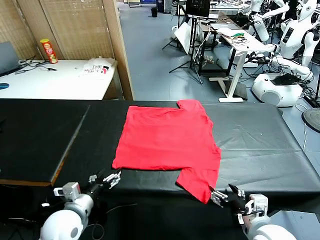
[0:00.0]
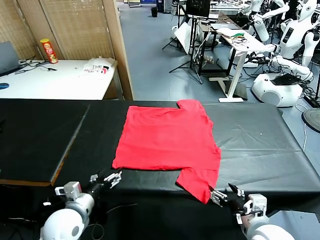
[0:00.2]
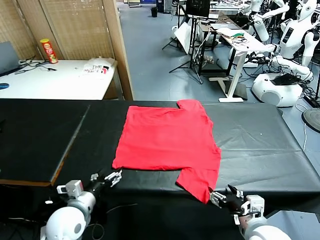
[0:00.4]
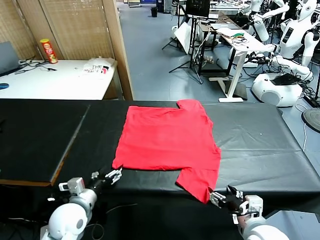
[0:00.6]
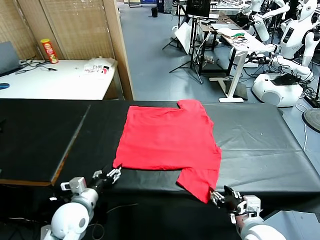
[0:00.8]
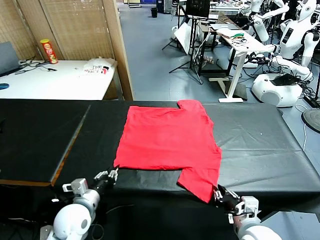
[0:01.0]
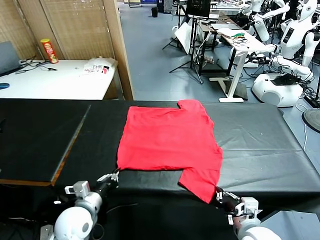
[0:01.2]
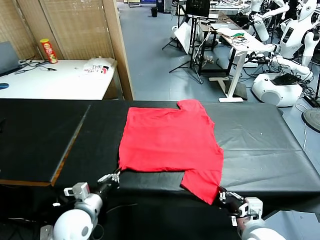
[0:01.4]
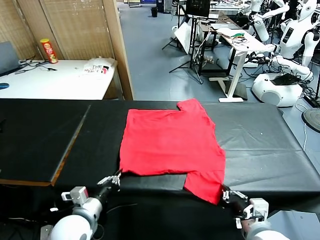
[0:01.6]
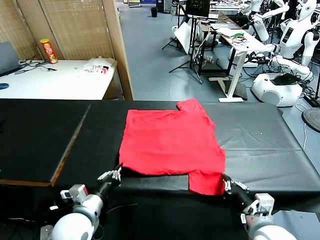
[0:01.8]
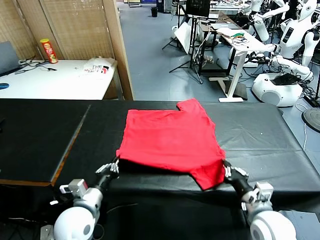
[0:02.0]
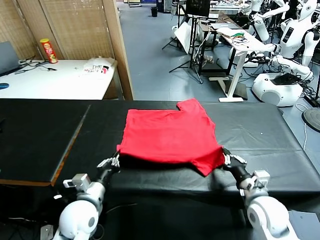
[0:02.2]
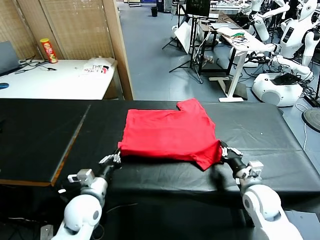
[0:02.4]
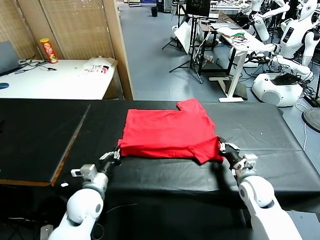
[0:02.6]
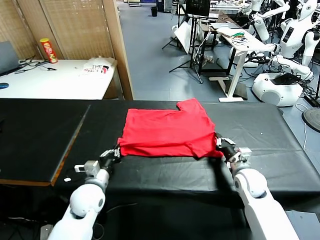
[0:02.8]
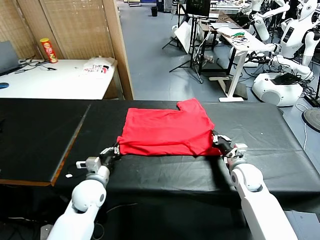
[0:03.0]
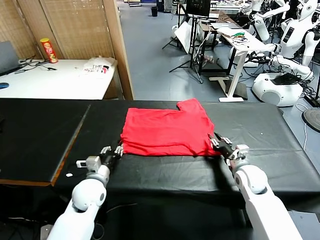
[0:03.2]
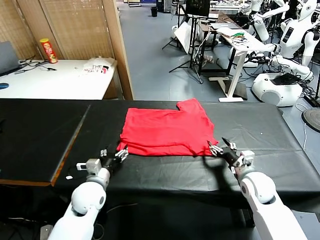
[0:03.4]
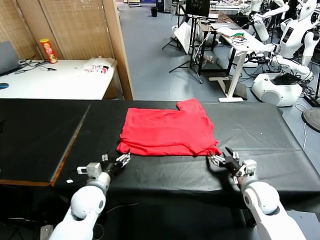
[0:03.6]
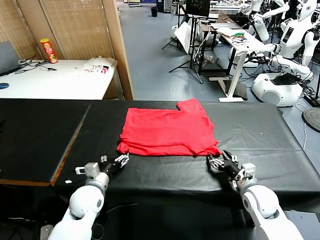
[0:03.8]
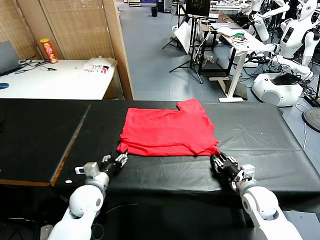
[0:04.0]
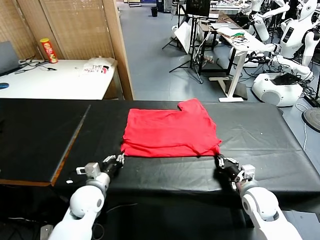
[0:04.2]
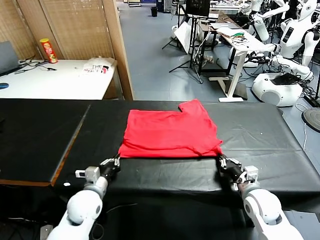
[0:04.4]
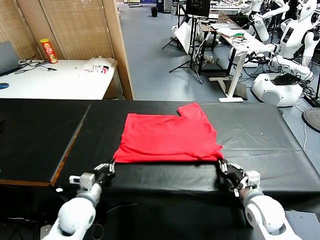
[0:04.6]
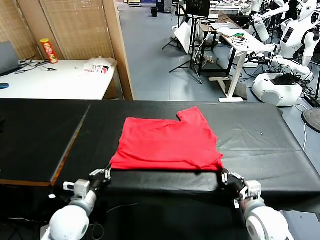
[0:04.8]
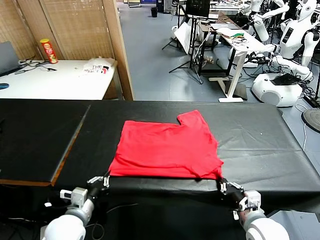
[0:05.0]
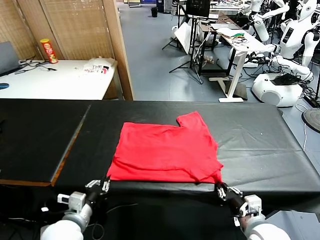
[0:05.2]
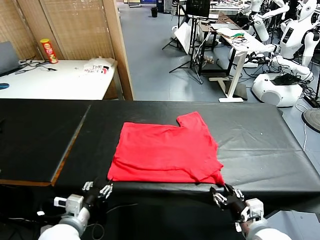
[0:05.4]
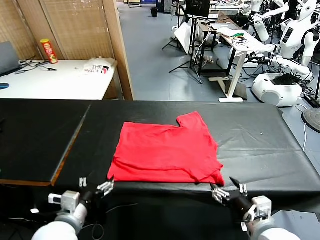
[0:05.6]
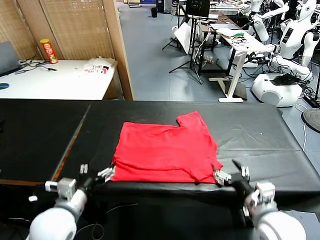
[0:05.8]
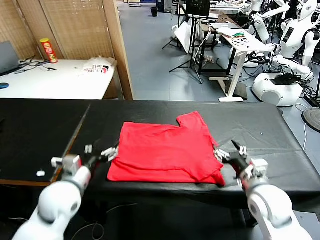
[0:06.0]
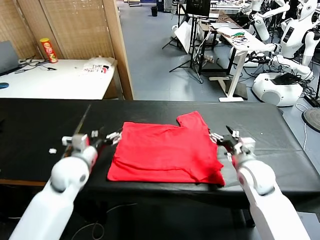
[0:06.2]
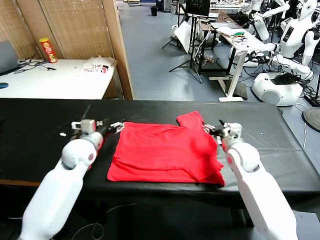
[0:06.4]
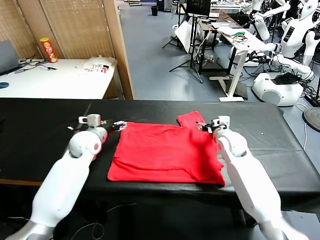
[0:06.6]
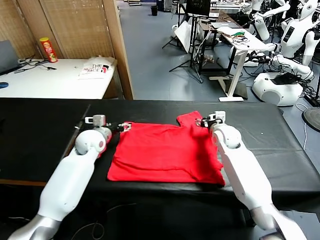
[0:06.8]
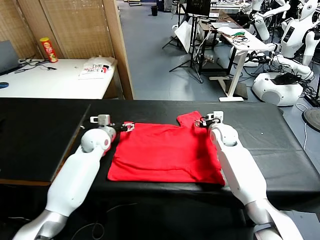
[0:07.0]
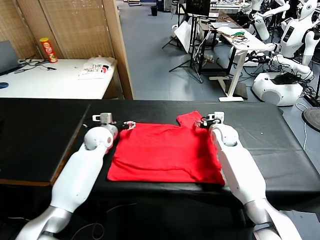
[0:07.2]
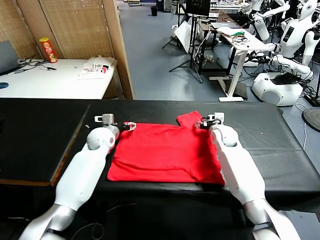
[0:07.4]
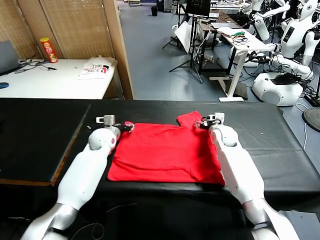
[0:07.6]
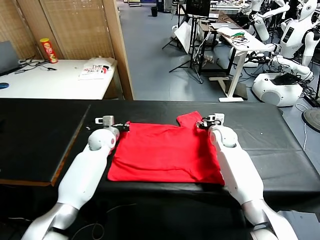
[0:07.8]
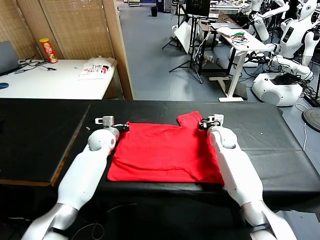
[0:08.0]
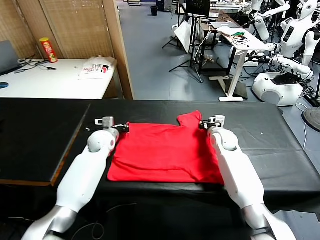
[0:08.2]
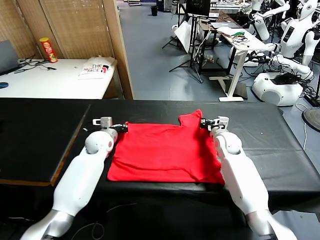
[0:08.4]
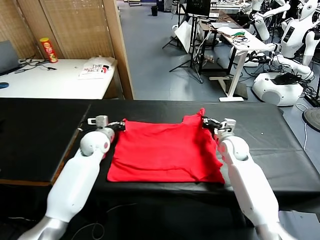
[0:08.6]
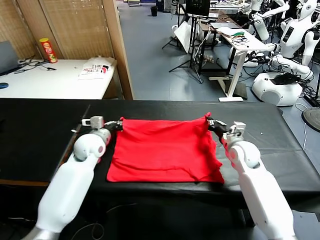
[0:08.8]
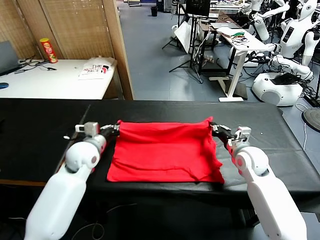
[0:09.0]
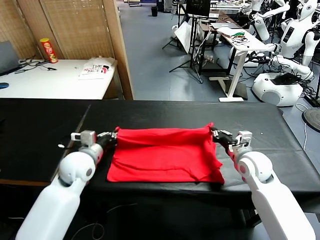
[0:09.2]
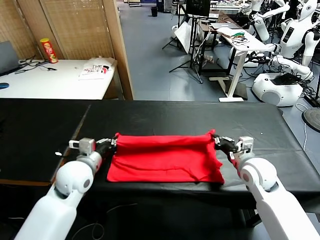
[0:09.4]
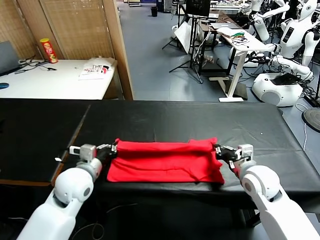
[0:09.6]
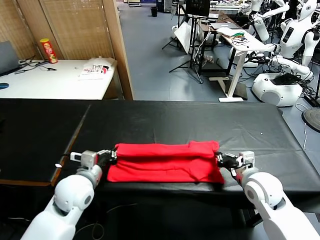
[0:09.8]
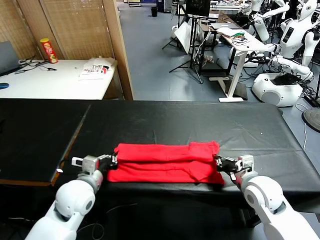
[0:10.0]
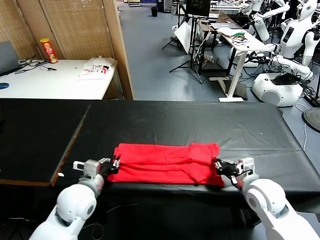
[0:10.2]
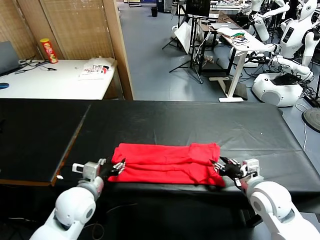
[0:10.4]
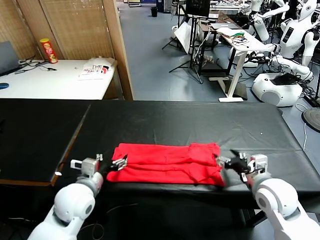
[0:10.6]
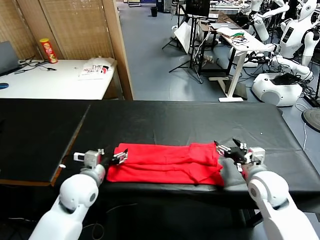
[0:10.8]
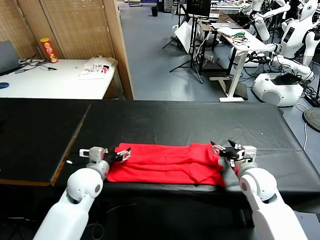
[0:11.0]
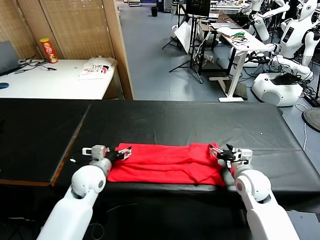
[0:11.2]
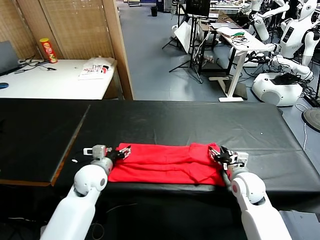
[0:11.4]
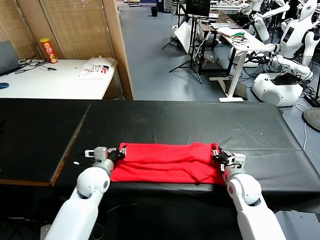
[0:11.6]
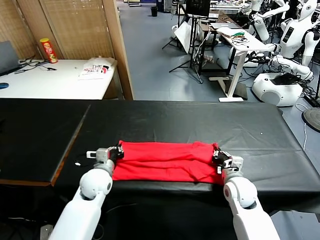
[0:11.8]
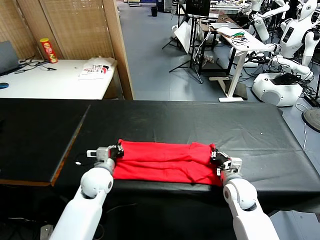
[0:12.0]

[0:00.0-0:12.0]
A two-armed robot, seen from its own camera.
Task of the whole recording: fold and organize the clothes.
Step, 0:00.0 to 0:01.2: use both grippers simultaneously to clamp the lower edge of the clothing fabric.
Step, 0:01.4 to 0:03.4: use both grippers to drag the lower edge of the fabric forward and fold it over the upper edge.
Step, 0:03.6 to 0:05.6: Drag the clothes downward with both gripper.
Step, 0:05.8 to 0:08.0: use both grippers simultaneously to clamp the upper edge of the clothing fabric.
Step, 0:08.2 to 0:10.4: use both grippers to drag the upper edge of the fabric backward and fold it over the lower edge.
0:01.6 to 0:03.0: The grippers both shift forward by some 15 cm. The left gripper opens. The right gripper opens.
0:03.0 to 0:04.4: The left gripper closes; the right gripper travels backward by roughly 10 cm, and closes up.
0:04.4 to 0:06.0: The right gripper travels forward and upward by roughly 15 cm, and opens its fingers, while the left gripper moves upward, about 10 cm, reaches some 10 cm backward, then returns, and opens up.
0:06.0 to 0:07.6: Both grippers move forward, approximately 20 cm. The left gripper closes up.
0:07.6 to 0:09.0: The left gripper shifts approximately 15 cm backward and upward, and closes, while the right gripper shifts approximately 15 cm backward, and closes its fingers.
0:09.0 to 0:10.4: The two grippers go about 10 cm backward. The right gripper opens up, while the left gripper opens.
0:10.4 to 0:12.0: The right gripper goes about 10 cm downward, and closes up; the left gripper shifts some 10 cm forward and downward, and closes up.

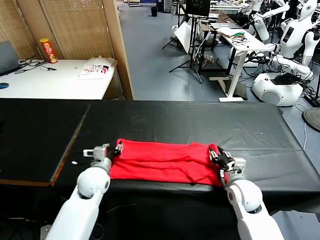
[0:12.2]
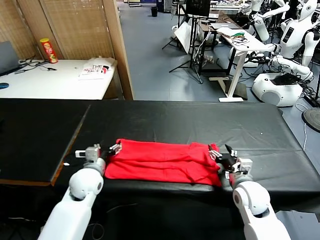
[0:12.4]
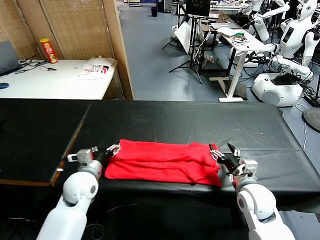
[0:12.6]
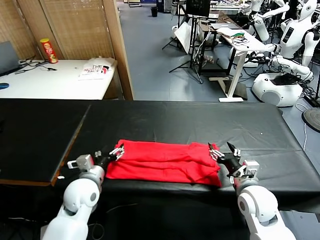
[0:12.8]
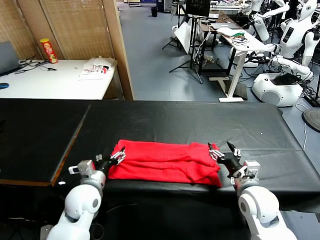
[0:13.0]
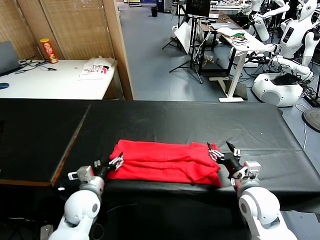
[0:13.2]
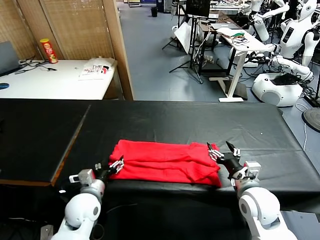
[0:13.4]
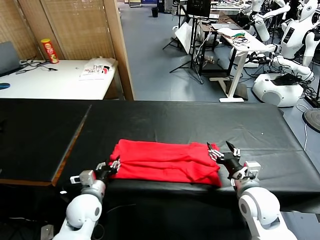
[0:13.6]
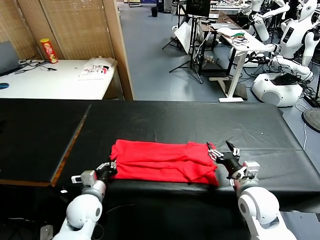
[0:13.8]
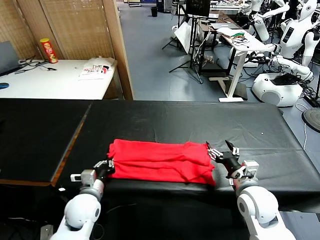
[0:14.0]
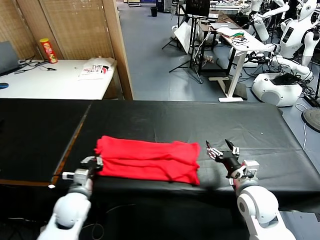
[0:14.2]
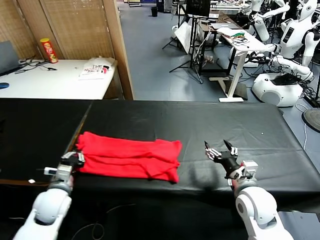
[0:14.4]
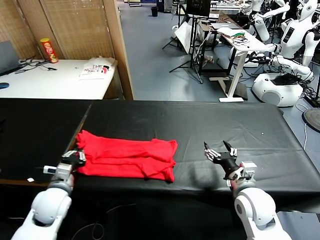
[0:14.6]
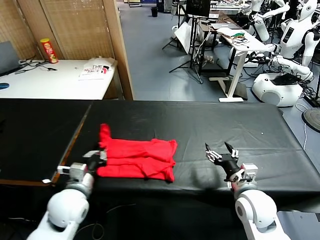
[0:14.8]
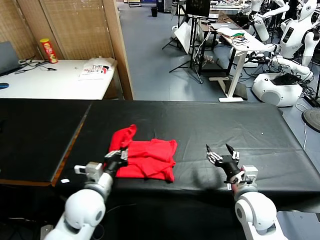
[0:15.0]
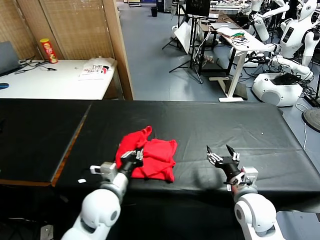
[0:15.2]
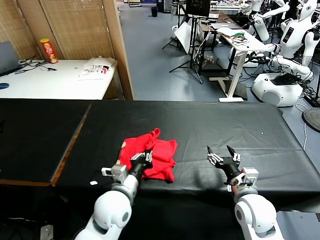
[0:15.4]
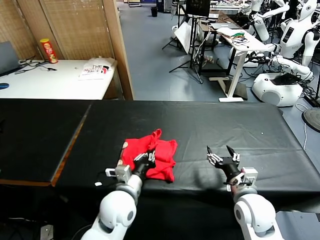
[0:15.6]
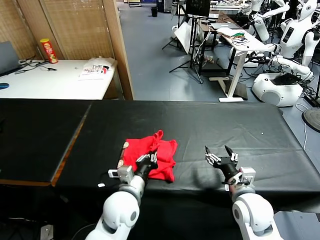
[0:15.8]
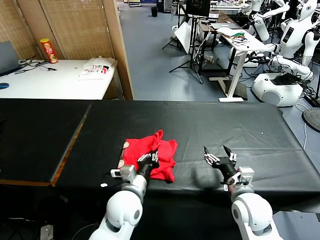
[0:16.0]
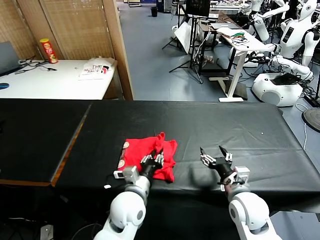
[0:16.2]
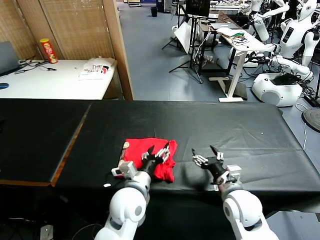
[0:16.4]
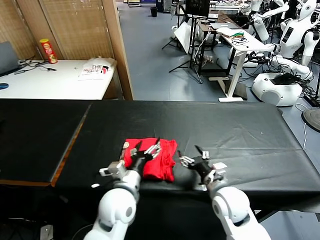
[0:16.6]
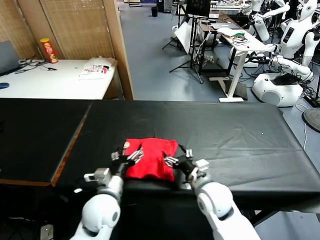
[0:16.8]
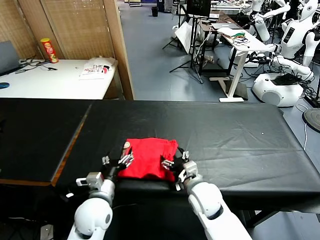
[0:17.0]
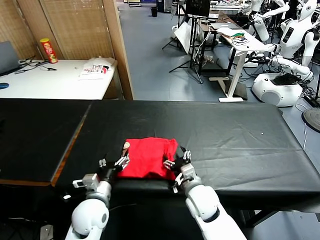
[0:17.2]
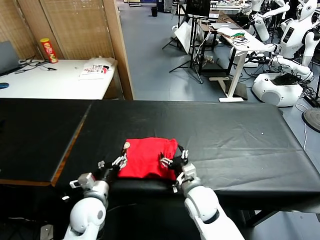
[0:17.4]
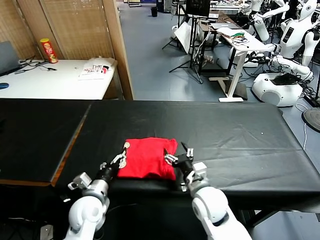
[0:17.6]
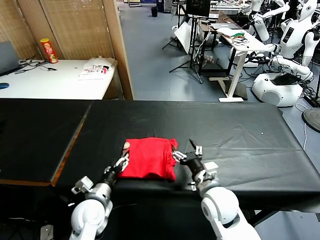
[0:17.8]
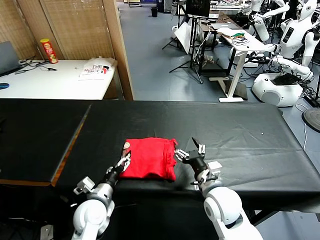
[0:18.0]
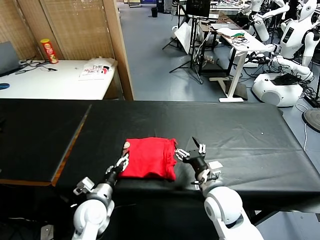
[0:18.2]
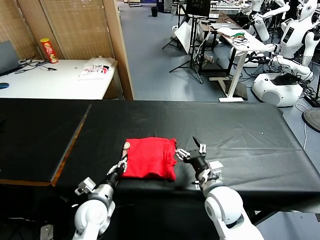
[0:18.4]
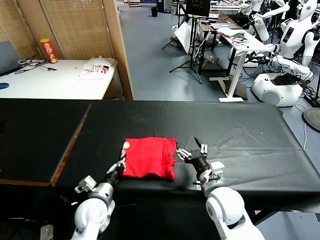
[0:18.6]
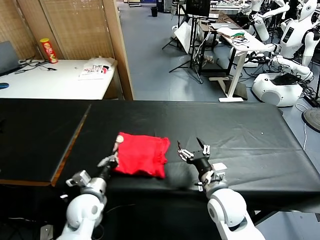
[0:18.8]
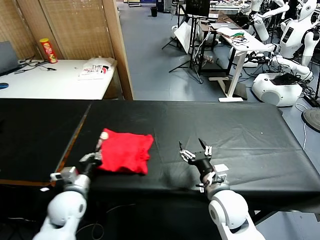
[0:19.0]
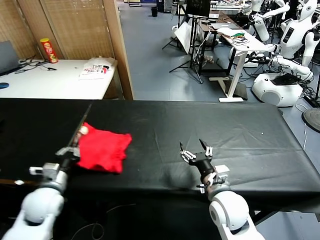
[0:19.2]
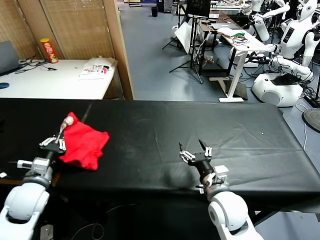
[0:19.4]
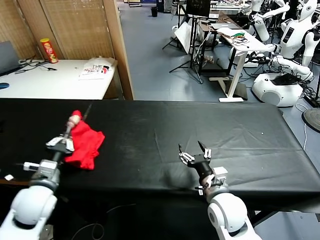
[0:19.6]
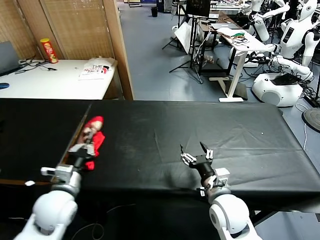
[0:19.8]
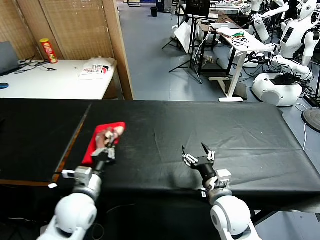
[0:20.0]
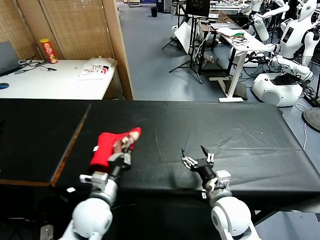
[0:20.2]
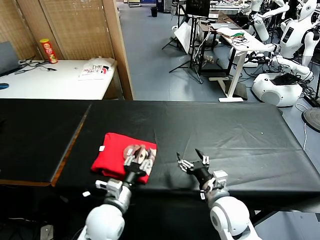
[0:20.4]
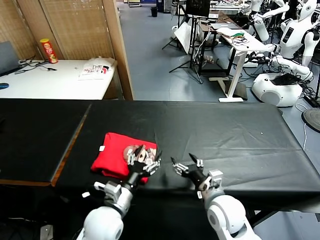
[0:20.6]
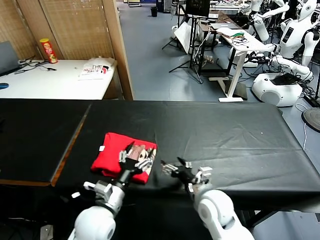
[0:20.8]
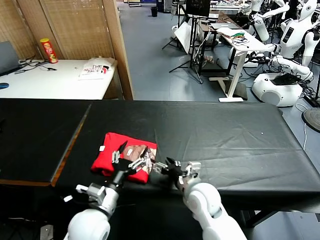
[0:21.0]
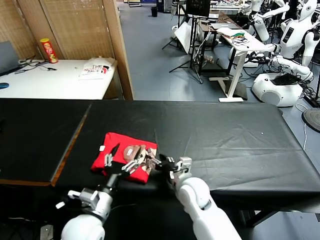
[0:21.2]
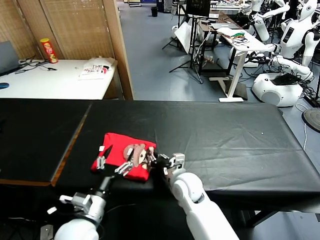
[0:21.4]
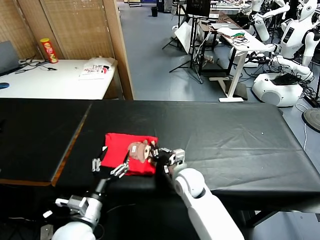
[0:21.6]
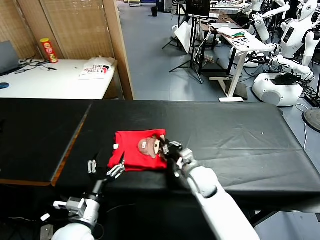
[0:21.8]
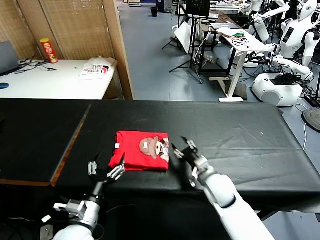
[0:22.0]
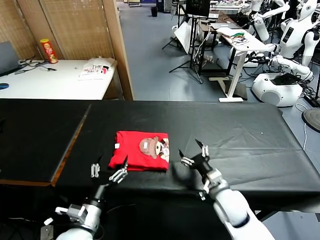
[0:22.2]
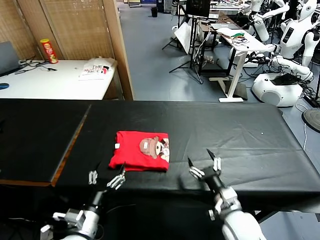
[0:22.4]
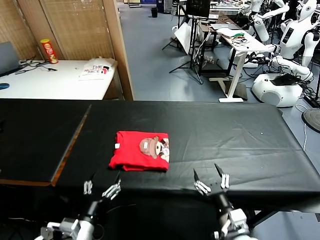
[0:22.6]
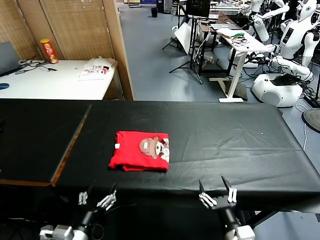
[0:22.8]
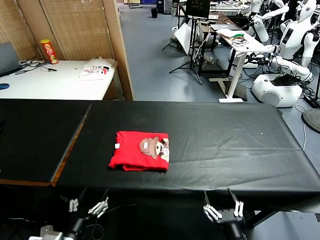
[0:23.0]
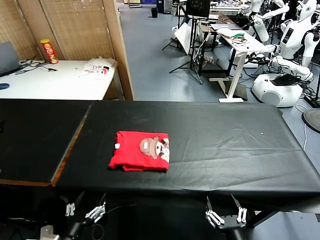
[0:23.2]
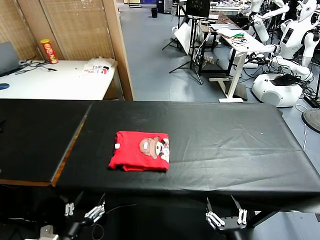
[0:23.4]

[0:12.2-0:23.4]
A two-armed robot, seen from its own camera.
Task of the whole recording: fold and organize the clothes.
Step, 0:14.0 to 0:16.4: use the left gripper to drag the left edge of the fabric to the left and folds it over the right edge.
Step, 0:16.6 to 0:20.4: Flip the folded clothes over with left gripper.
Step, 0:20.8 to 0:22.0: Drag the clothes to the center of the table.
0:12.2 to 0:13.8: The left gripper moves backward, some 10 cm, and closes its fingers; the right gripper moves some 5 cm.
0:13.8 to 0:15.4: The left gripper travels to the right and upward by approximately 15 cm.
0:15.4 to 0:17.0: The right gripper goes some 15 cm to the left and forward; the left gripper shifts approximately 5 cm to the left, and opens its fingers.
0:17.0 to 0:18.6: The left gripper moves about 5 cm, and closes its fingers. The right gripper ends up about 5 cm from where it was.
0:18.6 to 0:20.2: The left gripper travels upward by approximately 5 cm, and travels to the left and back again, some 15 cm each way.
0:20.2 to 0:21.8: The right gripper is displaced forward and to the left by approximately 15 cm, and closes up, while the left gripper travels backward by about 5 cm, and opens.
0:21.8 to 0:23.4: The left gripper heads backward, covering about 10 cm, while the right gripper heads backward, covering about 30 cm, and opens up.
